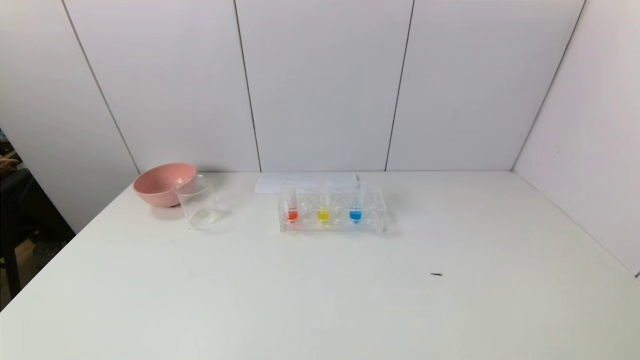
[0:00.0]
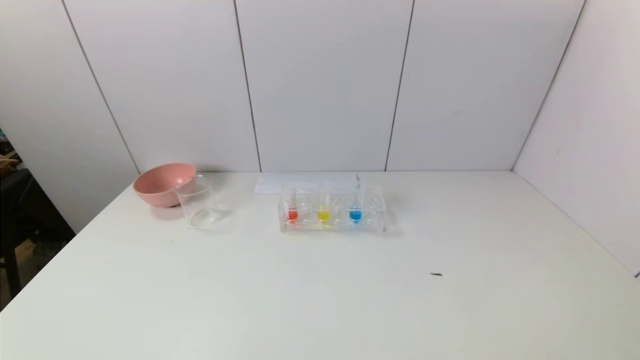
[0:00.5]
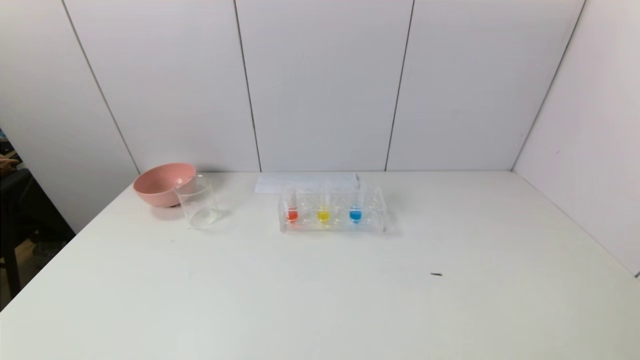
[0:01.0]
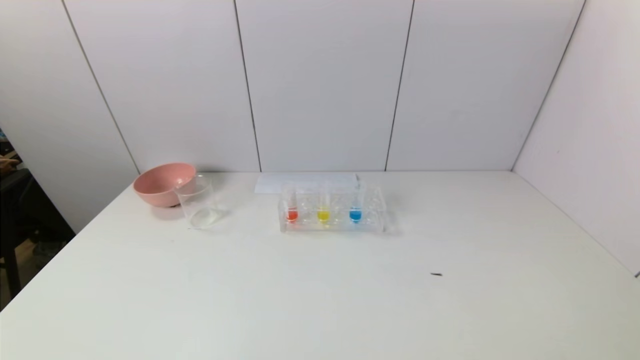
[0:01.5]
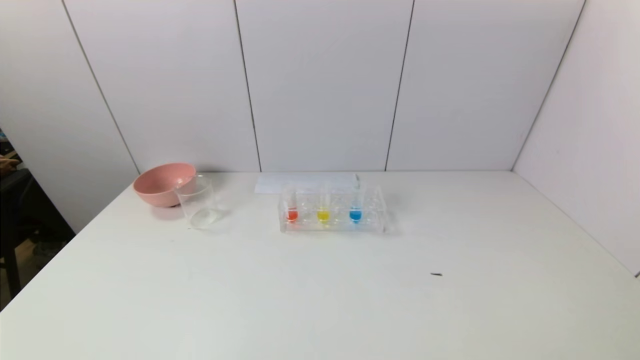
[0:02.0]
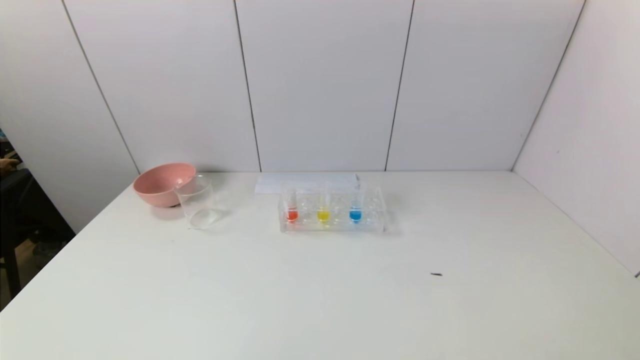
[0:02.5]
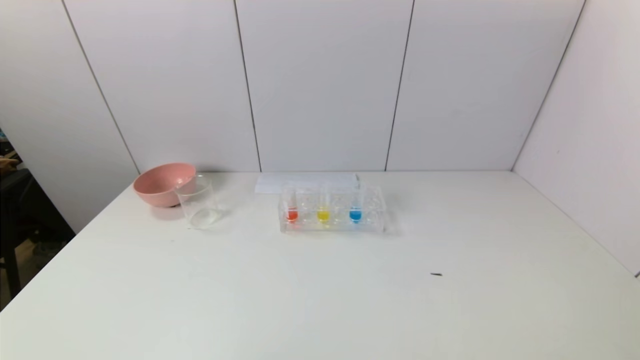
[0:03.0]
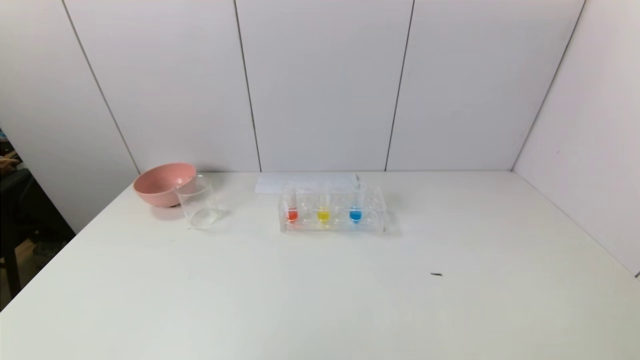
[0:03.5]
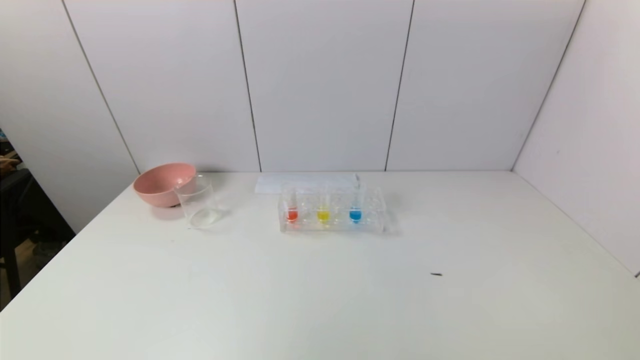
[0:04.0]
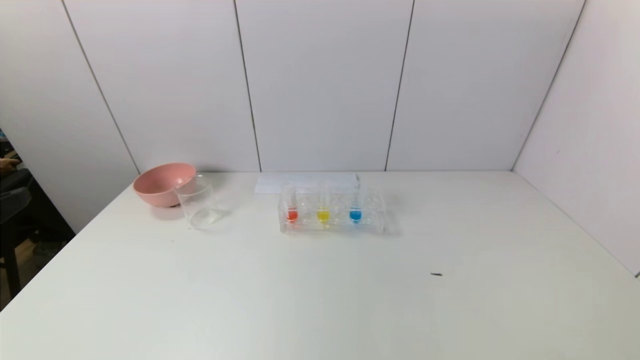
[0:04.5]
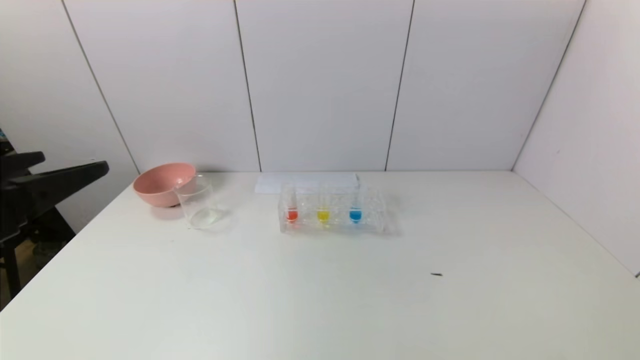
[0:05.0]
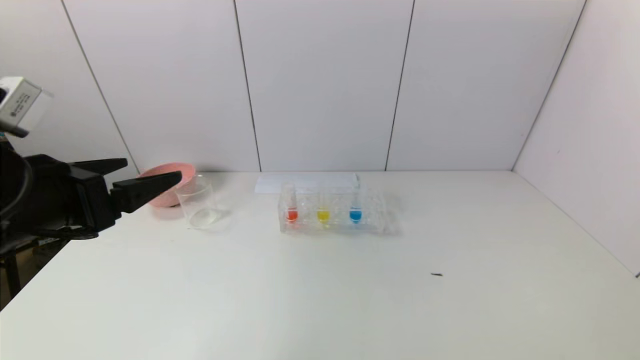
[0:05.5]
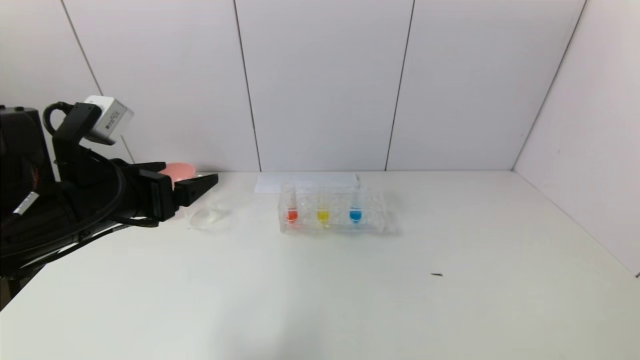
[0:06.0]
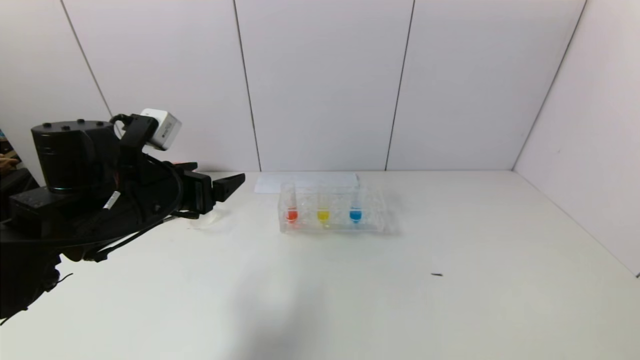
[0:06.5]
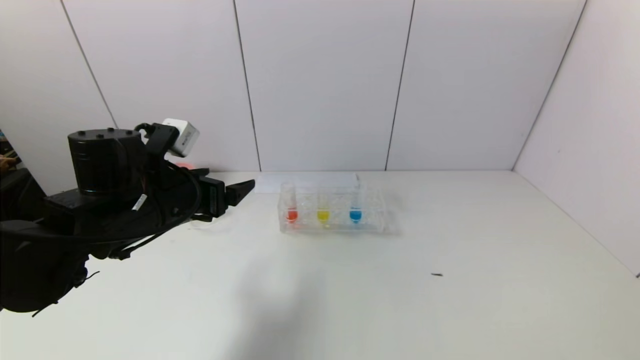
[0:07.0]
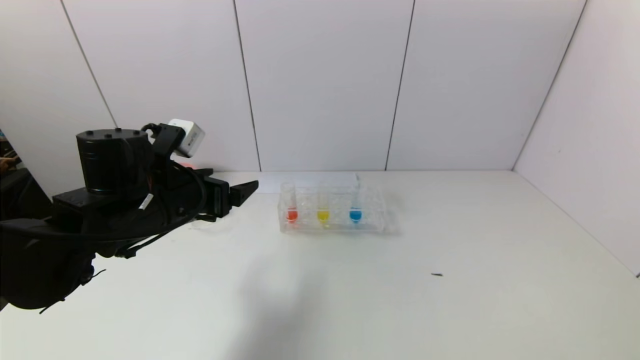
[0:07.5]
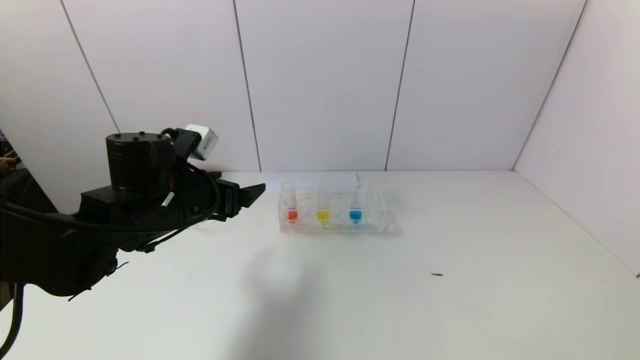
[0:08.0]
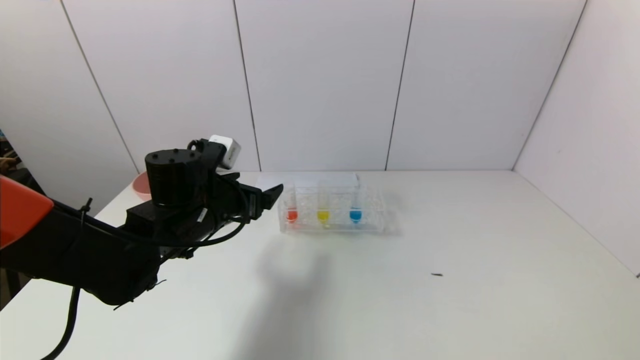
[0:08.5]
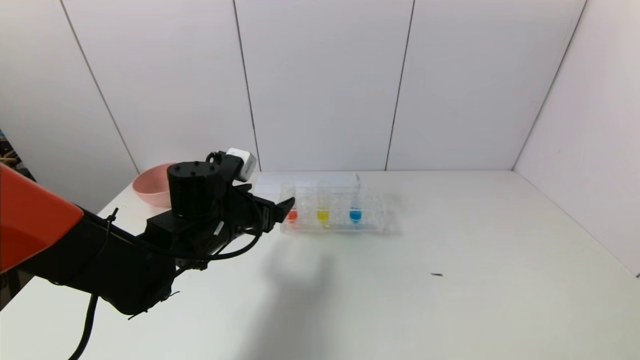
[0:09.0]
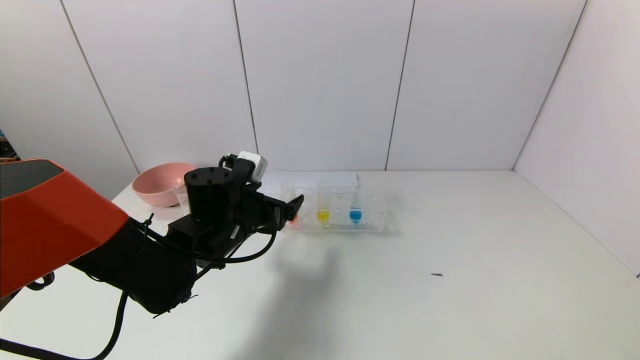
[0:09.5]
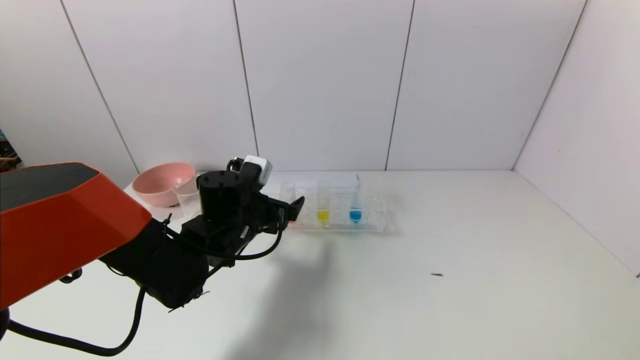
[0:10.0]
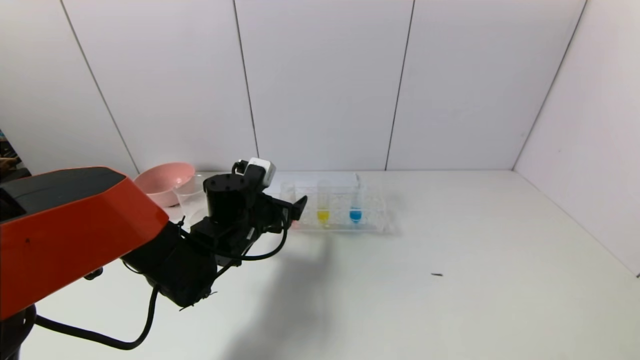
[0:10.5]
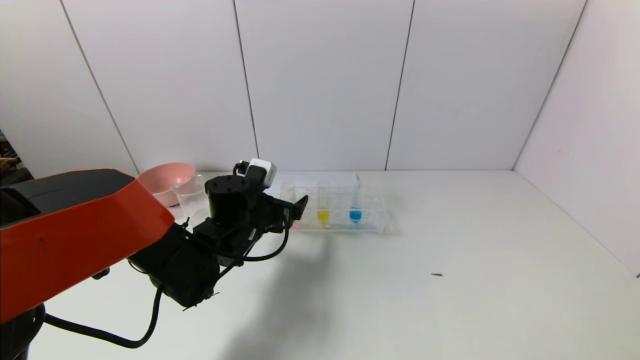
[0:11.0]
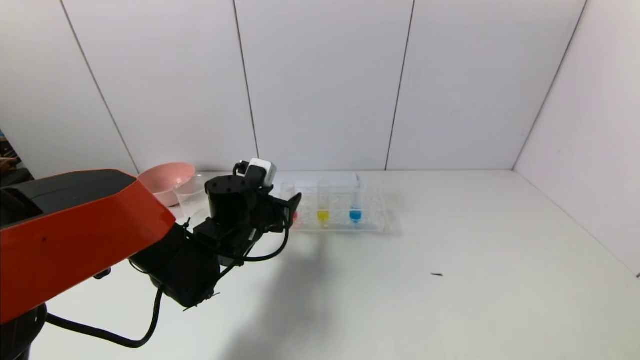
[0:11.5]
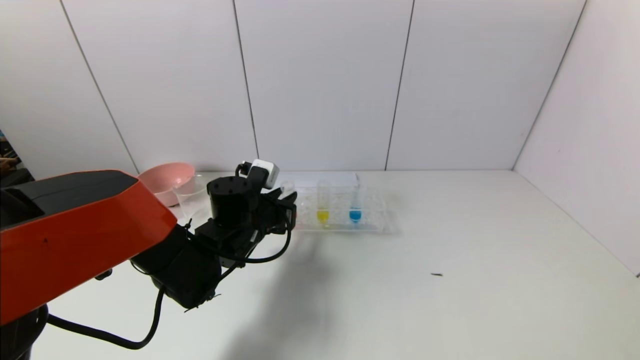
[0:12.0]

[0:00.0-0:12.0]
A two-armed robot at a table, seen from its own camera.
Task of the whole recording: pick up the test tube with yellow pigment and the test tube with red pigment by grippers and pour them into the beaker.
Step, 0:00.0 to 0:11.5: Grasp the red reagent with the left gripper.
0:00.0 to 0:02.0: Both grippers stay put.
0:04.0 to 0:06.0: The left gripper shifts approximately 25 cm forward.
0:06.0 to 0:08.0: The left gripper travels forward and downward by some 10 cm.
0:08.0 to 0:10.0: The left gripper heads downward and to the right, covering about 10 cm.
0:10.0 to 0:12.0: The left gripper closes.

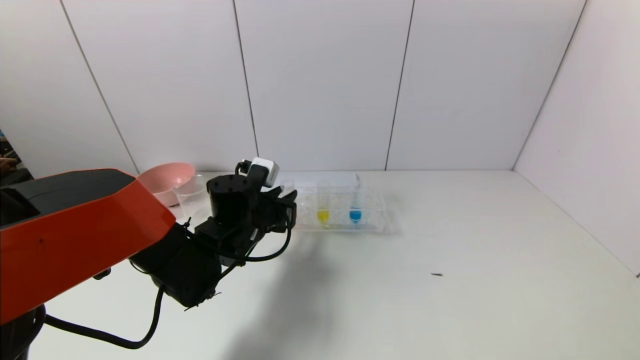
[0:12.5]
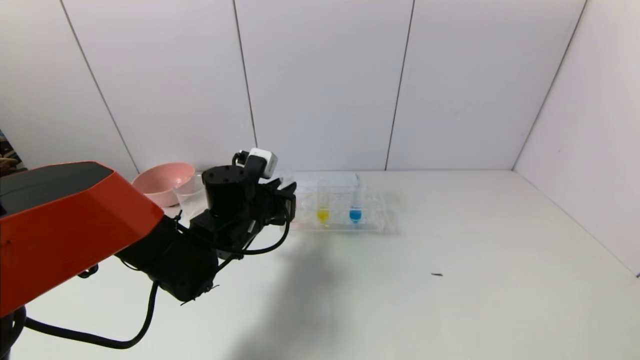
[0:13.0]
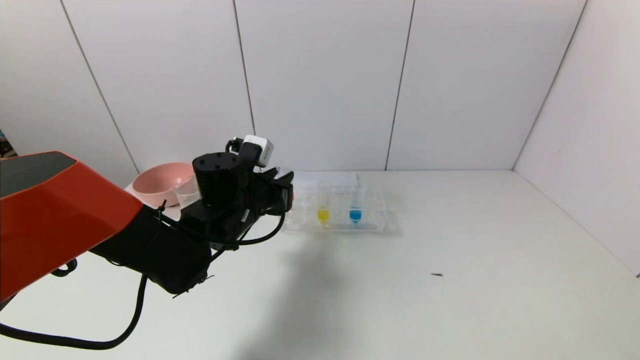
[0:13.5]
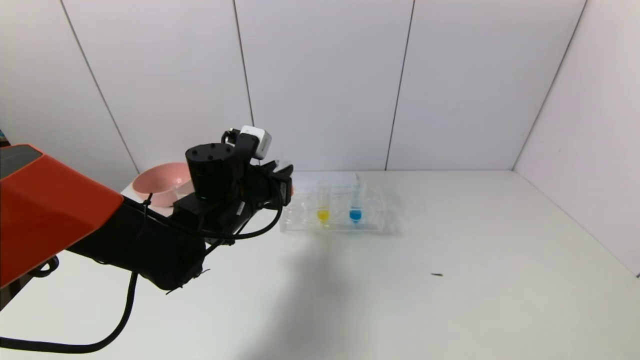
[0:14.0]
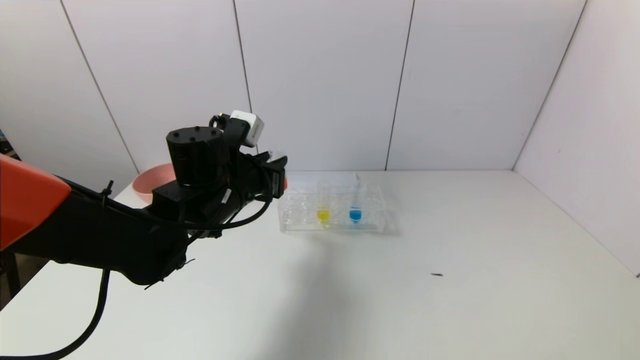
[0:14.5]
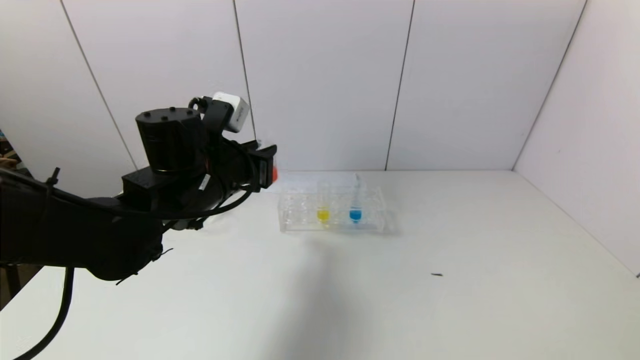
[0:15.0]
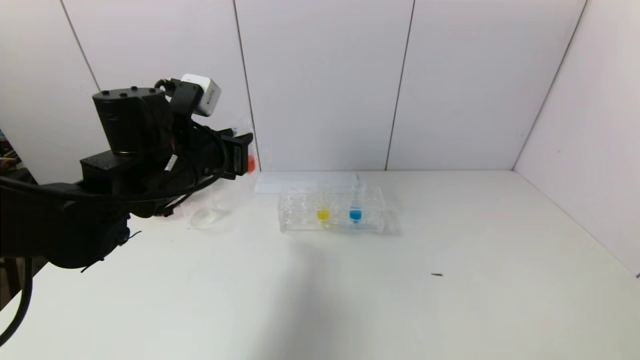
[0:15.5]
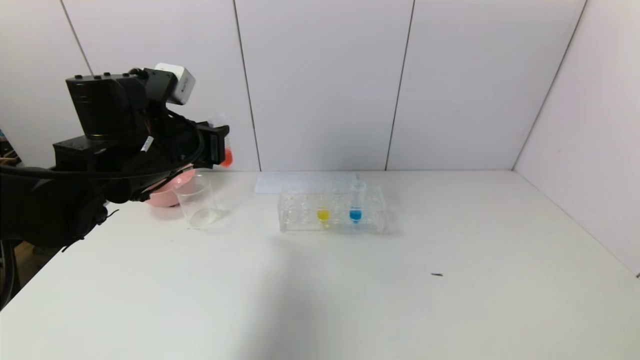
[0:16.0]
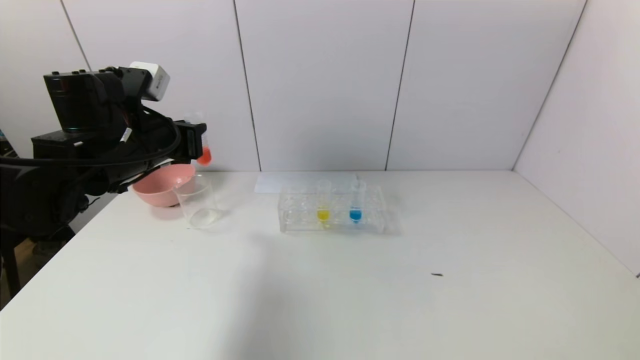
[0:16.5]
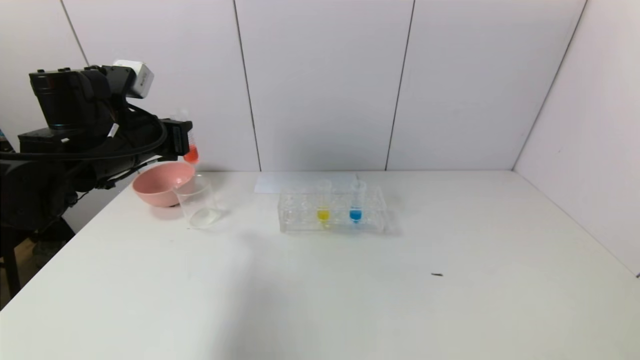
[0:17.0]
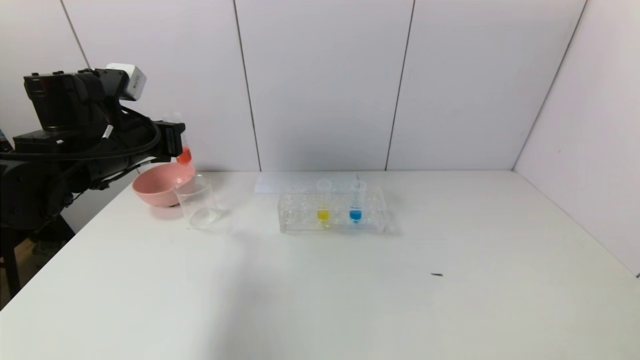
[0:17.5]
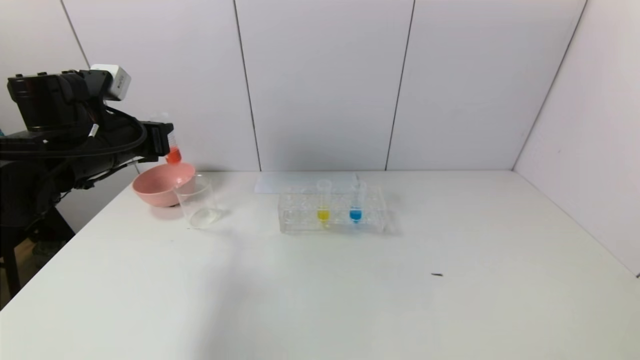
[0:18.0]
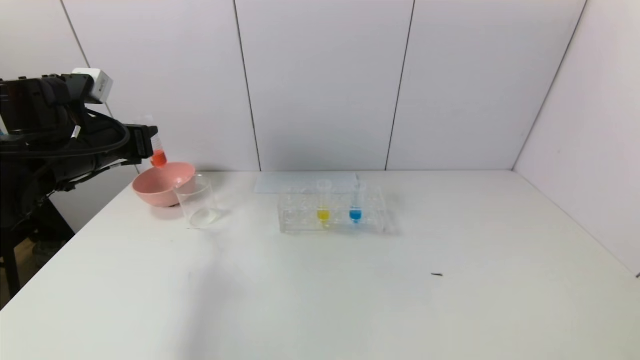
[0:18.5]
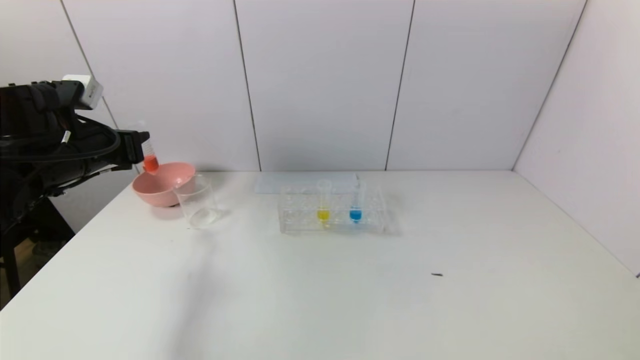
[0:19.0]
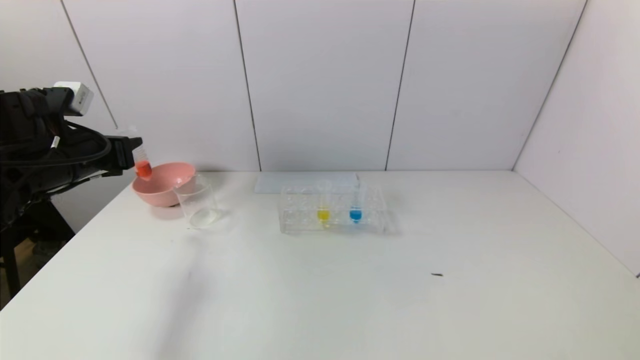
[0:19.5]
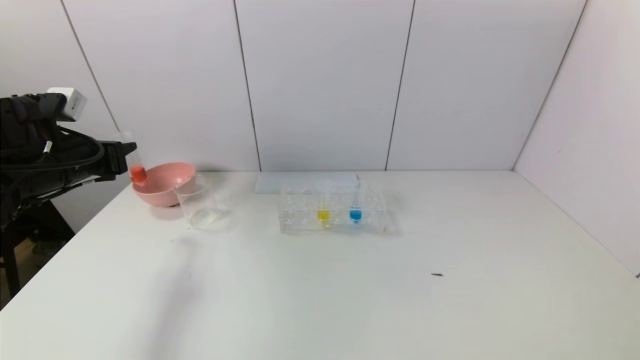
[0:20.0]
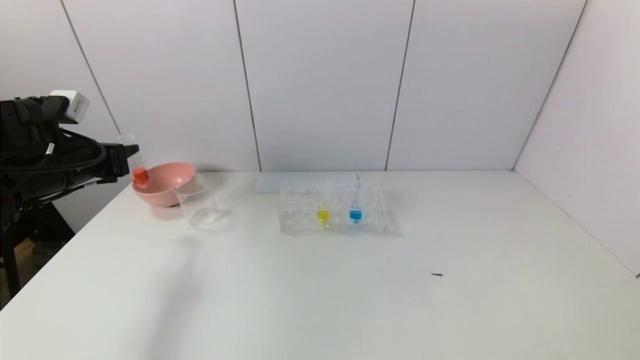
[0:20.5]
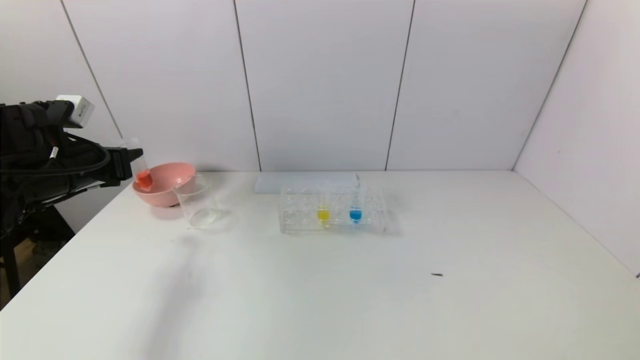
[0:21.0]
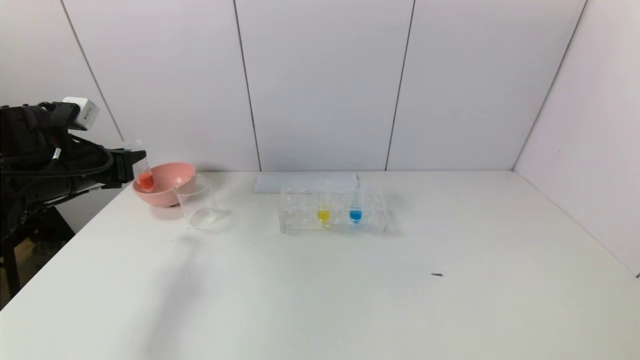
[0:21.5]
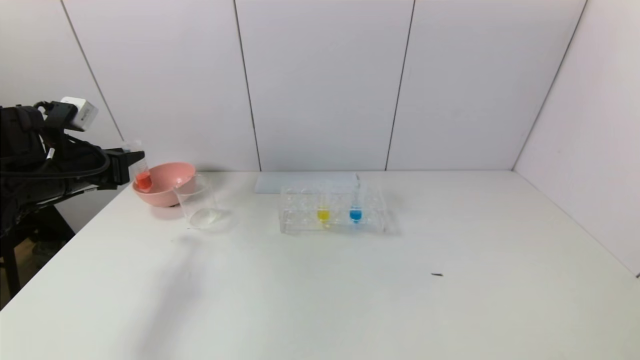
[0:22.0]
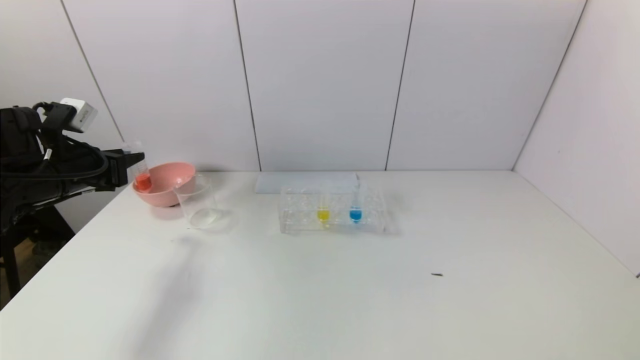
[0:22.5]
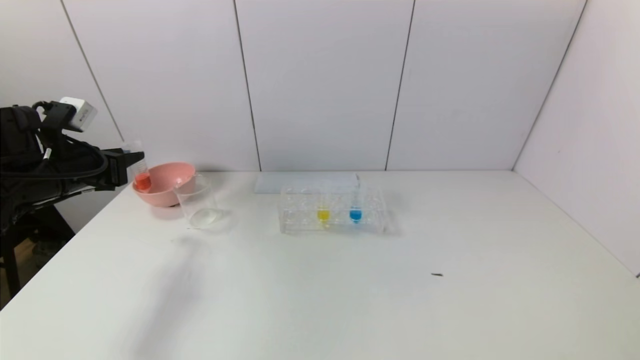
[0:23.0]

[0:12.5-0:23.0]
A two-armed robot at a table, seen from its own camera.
Task of the whole recording: pick up the test tube with yellow pigment and the test tube with red pigment by grippers and pour them into the beaker.
0:12.5 to 0:14.5: The left gripper heads upward, covering approximately 10 cm.
0:14.5 to 0:16.5: The left gripper shifts roughly 10 cm to the left and upward.
0:16.5 to 0:19.0: The left gripper travels to the left by some 10 cm.
0:19.0 to 0:23.0: The grippers make only small movements.
